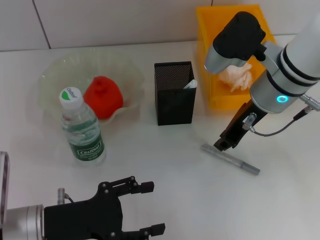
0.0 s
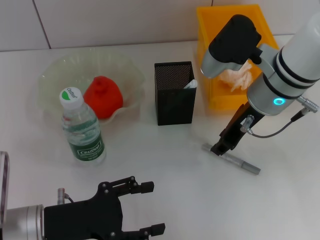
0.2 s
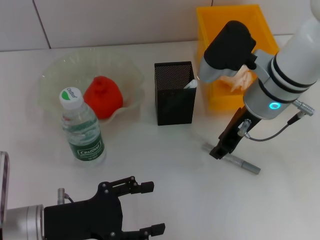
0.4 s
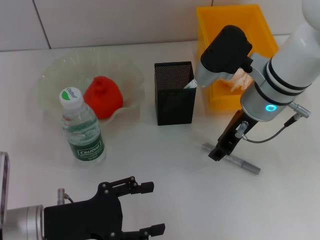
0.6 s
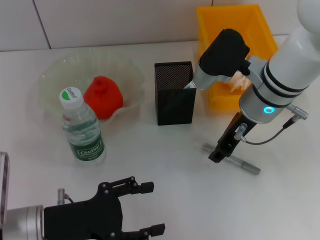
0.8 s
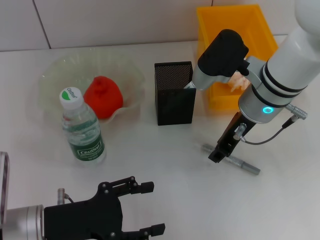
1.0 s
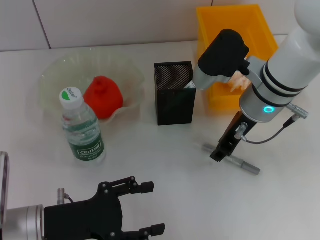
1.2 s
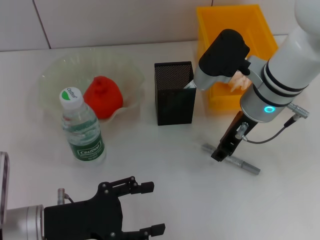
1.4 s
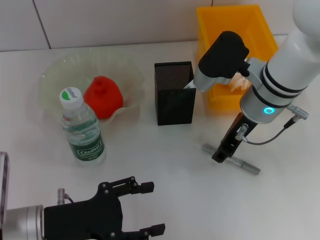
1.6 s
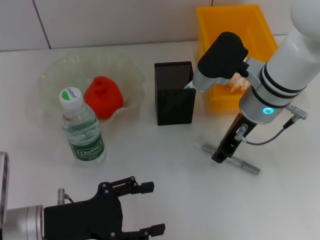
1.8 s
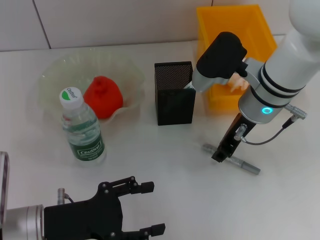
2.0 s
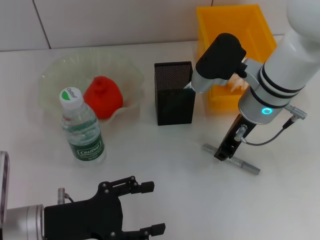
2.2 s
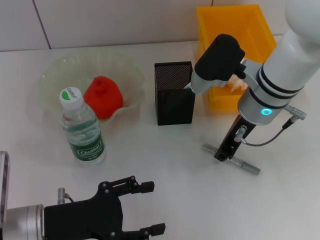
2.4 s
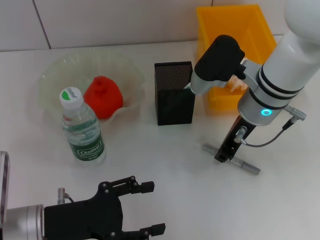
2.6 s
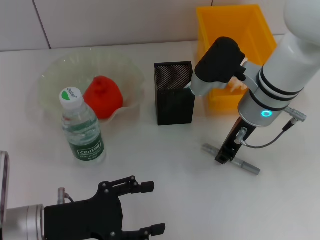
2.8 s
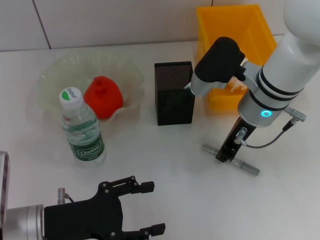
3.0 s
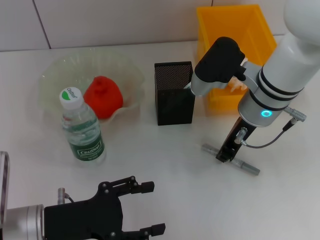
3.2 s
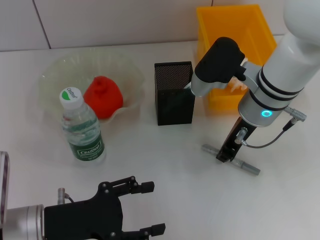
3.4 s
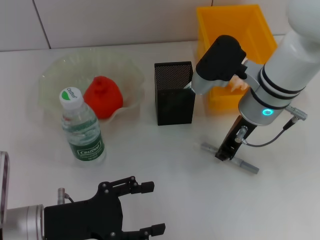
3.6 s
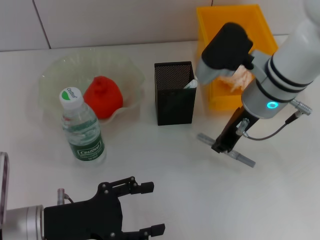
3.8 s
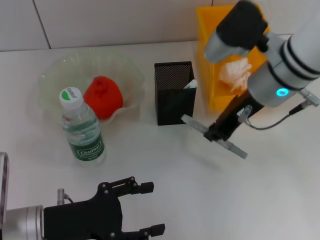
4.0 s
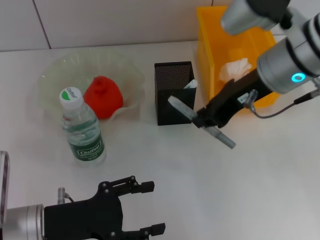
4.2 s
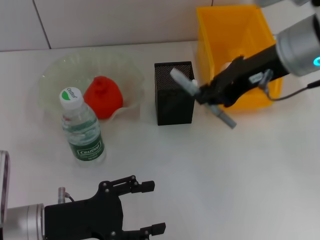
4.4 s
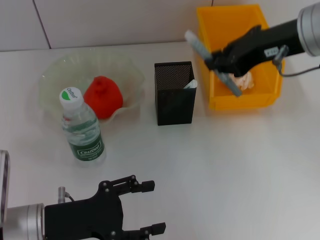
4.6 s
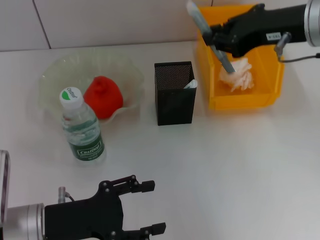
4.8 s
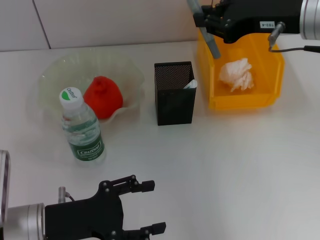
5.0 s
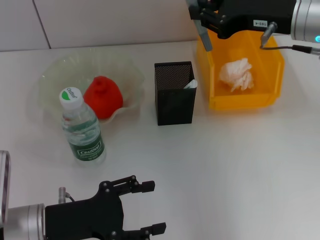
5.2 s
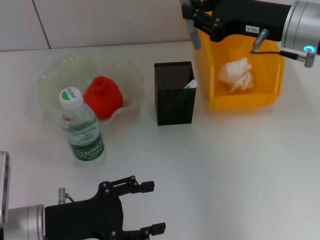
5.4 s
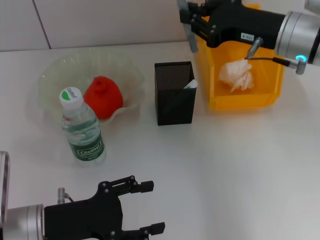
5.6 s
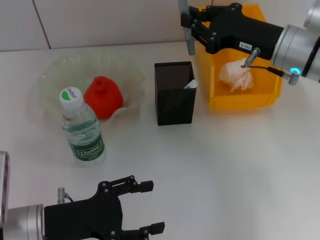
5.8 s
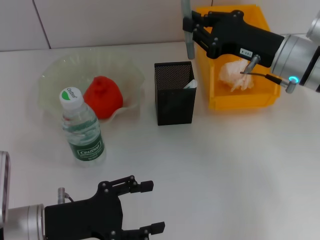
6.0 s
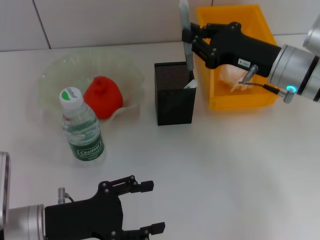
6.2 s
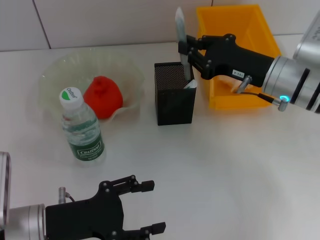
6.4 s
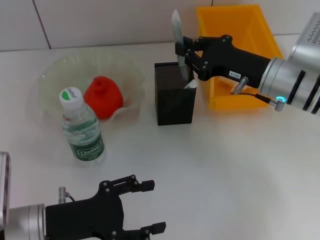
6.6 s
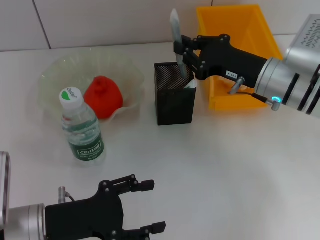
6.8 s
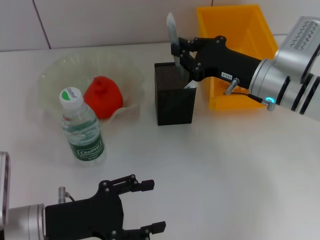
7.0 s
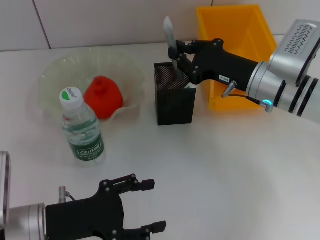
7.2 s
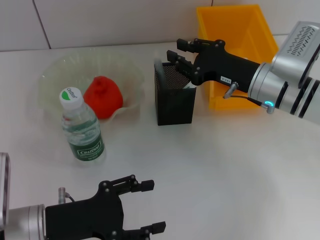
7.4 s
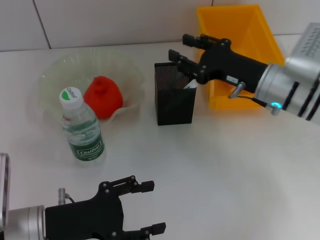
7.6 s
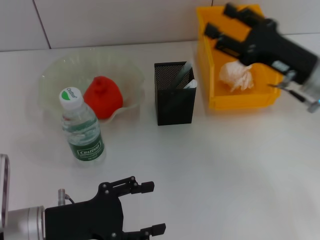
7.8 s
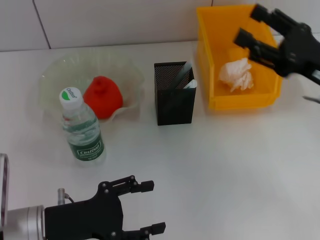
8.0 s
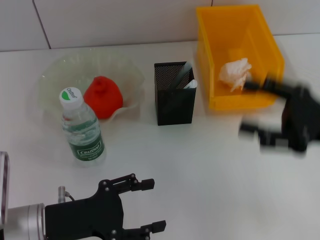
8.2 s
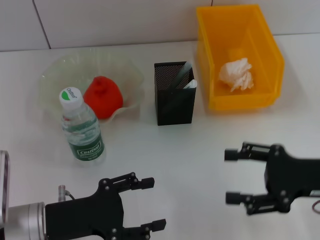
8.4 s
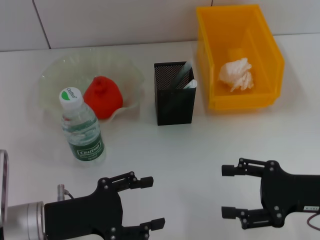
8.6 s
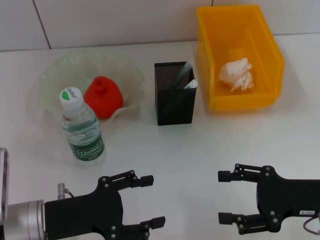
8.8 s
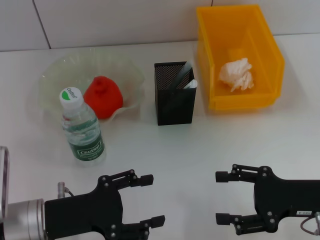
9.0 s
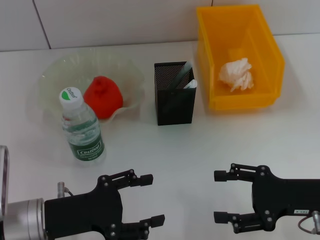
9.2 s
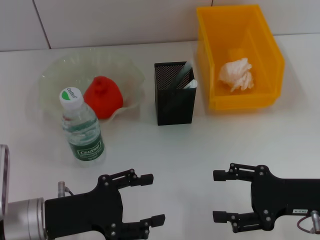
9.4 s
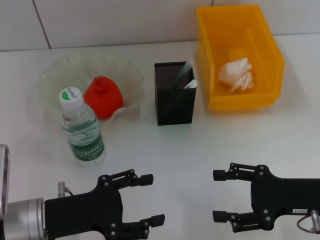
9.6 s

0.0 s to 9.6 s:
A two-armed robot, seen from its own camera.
Step, 0.0 to 3.0 s: Grab the gray glue with the right hand.
Step, 3.4 to 7.4 s: Place the gray glue into the pen holder with the right hand.
0.0 to 1.6 s: The right gripper opens its fingers.
1.6 to 3.2 s: The right gripper closes.
3.2 to 4.8 s: The right gripper travels upward and to the right by some 15 cm.
4.8 to 6.4 s: The right gripper moves downward, roughly 15 cm.
6.4 to 8.0 s: The right gripper moves to the right and backward, roughly 10 cm, and opens its fingers.
8.0 to 9.6 s: The right gripper shifts some 10 cm downward and backward.

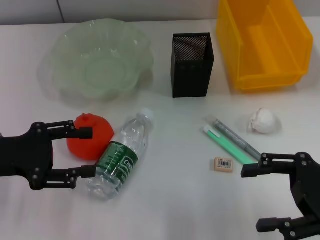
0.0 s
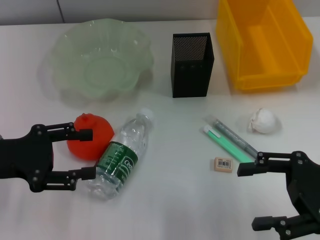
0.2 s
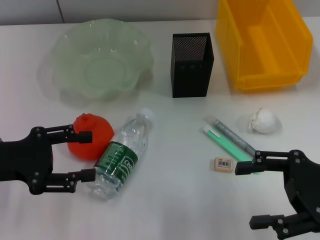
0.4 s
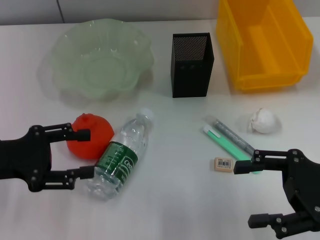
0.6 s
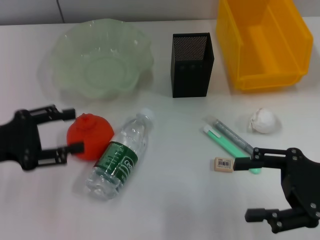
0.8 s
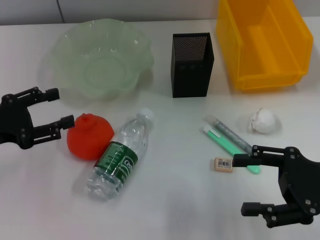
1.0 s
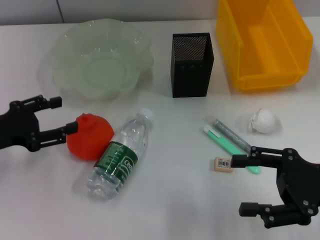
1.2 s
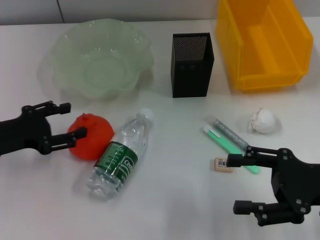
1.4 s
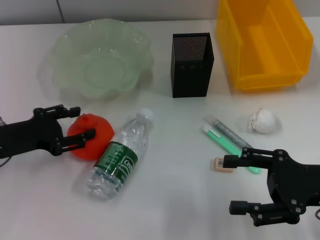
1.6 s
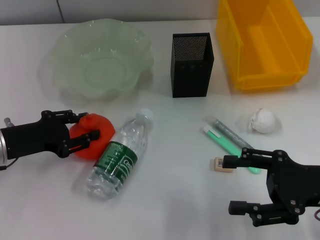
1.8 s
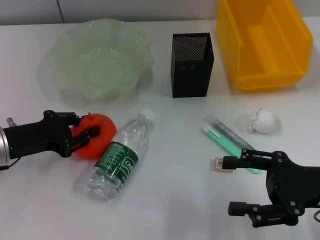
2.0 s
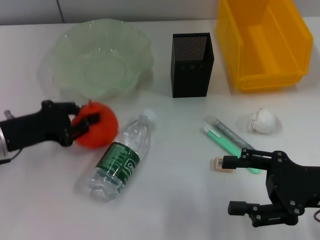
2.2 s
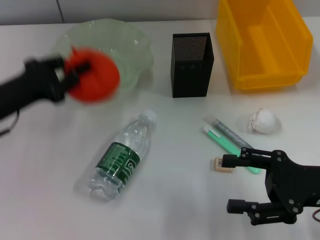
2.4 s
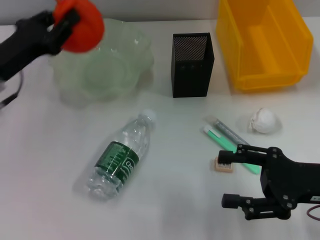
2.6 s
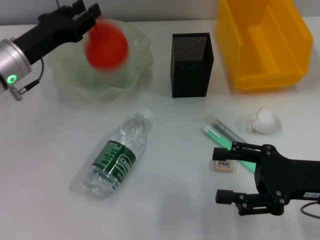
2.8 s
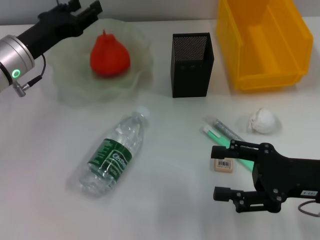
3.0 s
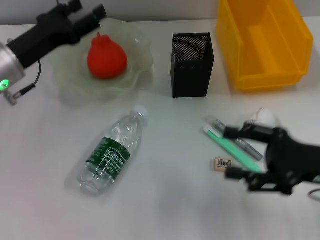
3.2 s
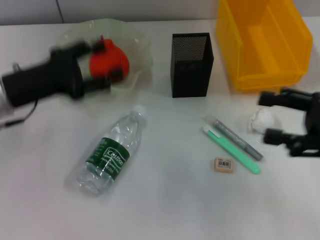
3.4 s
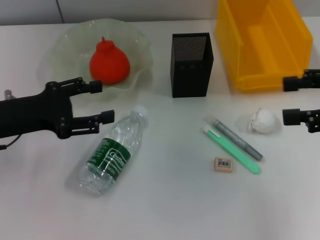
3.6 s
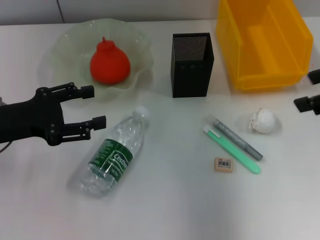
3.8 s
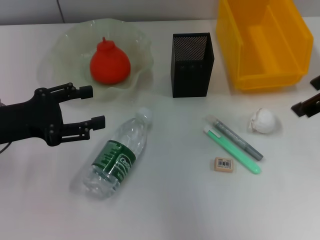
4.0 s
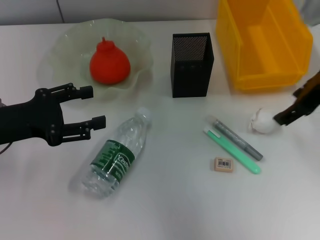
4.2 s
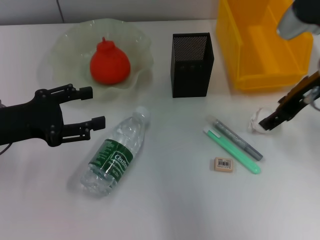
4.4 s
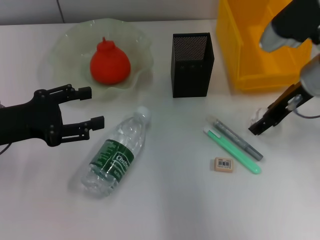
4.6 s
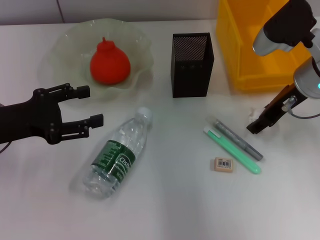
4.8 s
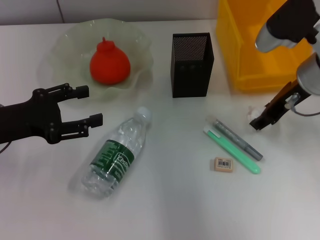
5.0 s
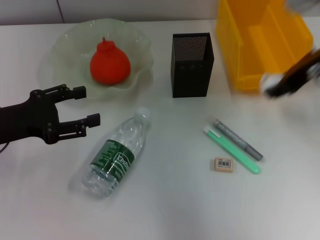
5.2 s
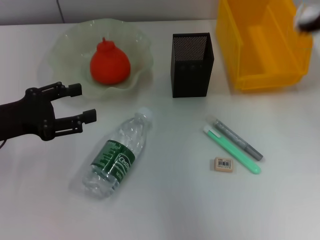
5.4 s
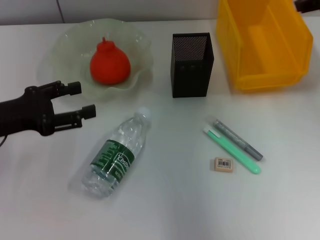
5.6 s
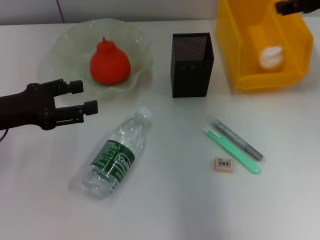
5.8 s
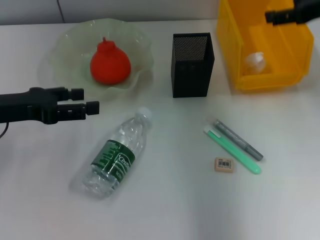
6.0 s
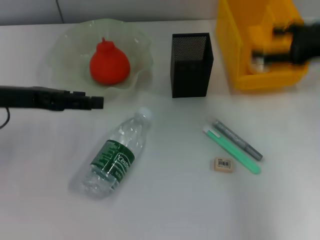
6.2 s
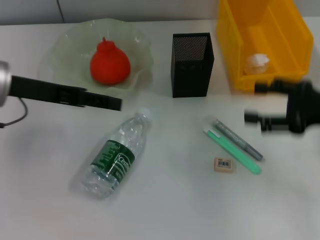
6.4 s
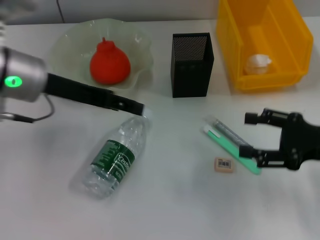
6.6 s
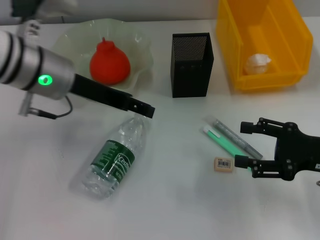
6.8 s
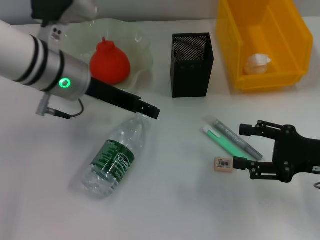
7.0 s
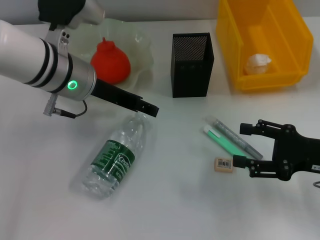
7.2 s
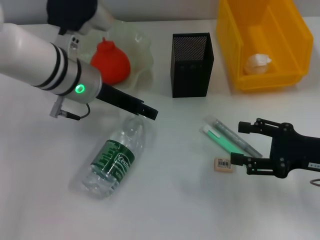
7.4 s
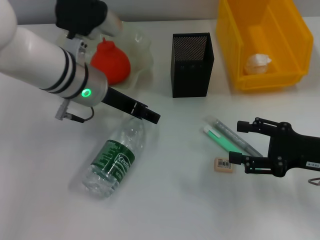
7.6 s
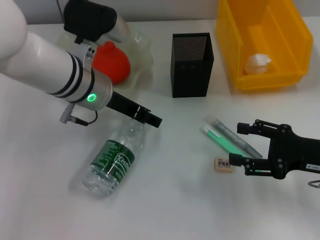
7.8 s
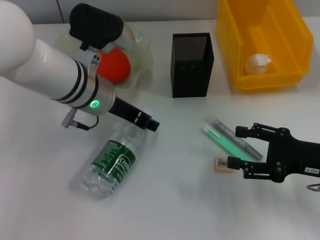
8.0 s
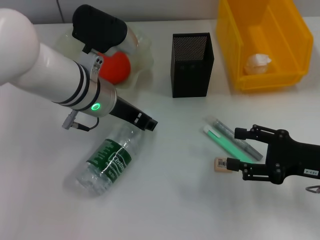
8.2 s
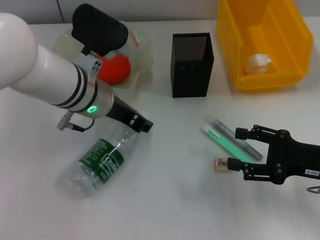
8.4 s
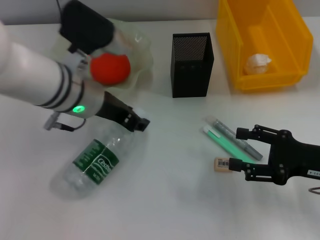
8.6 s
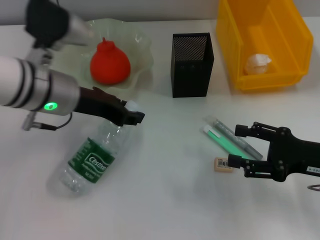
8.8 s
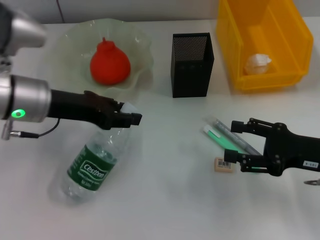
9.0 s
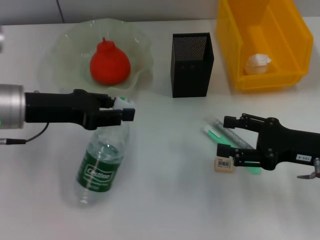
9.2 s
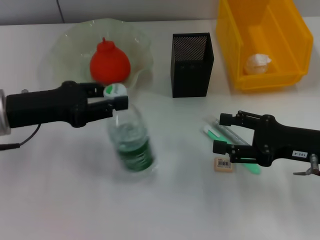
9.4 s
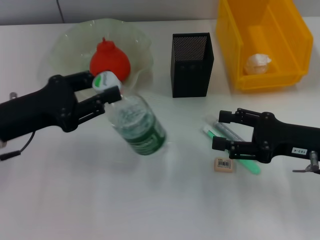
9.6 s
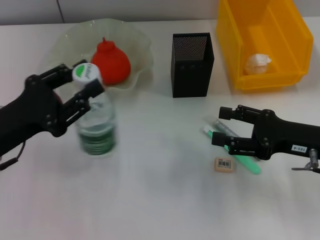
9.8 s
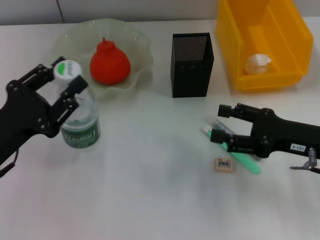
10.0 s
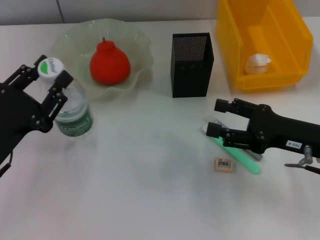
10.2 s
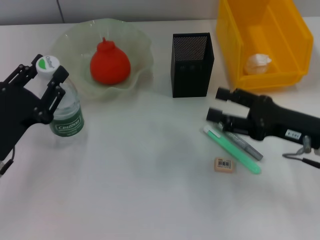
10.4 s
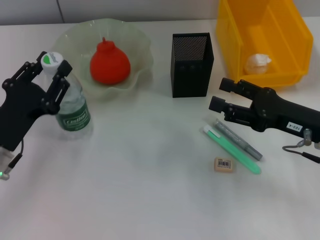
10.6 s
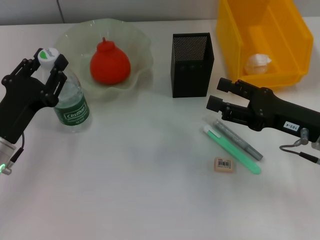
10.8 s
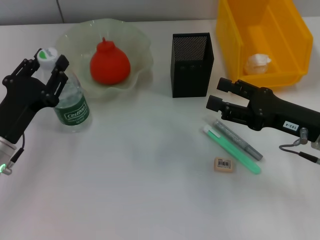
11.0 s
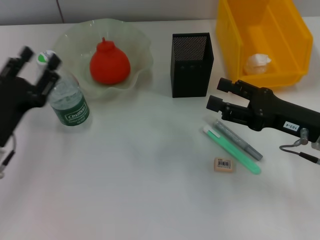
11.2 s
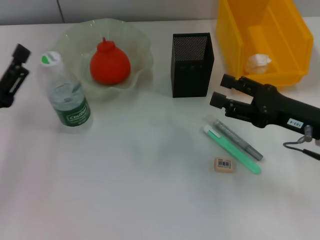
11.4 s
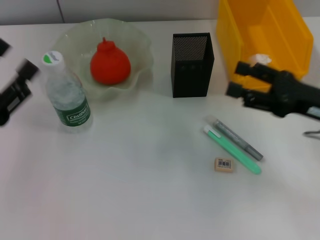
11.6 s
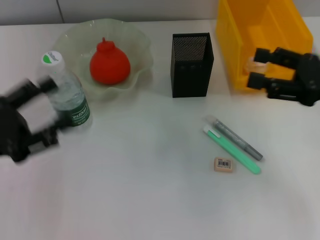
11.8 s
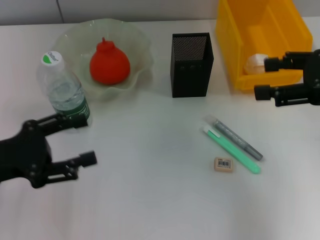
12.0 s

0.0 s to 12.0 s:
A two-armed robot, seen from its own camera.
Step, 0.0 to 2.0 s: Grab the orange with the left hand.
Step, 2.2 to 2.8 s: Place the orange into the fruit bowl with the left hand.
Step, 3.0 to 4.8 s: Grab the paper ball with the right hand.
Step, 5.0 to 5.6 s: Place the paper ball into the trash can with the right hand.
Step, 6.0 to 8.2 s: Grab the water bottle with the left hand.
Step, 8.4 to 11.0 s: Place the water bottle on the table with the left hand.
0.0 to 1.6 s: The left gripper changes place by approximately 5 cm.
1.6 to 3.0 s: The left gripper shifts roughly 10 cm forward and to the right, and closes its fingers.
3.0 to 4.4 s: The right gripper shifts about 15 cm forward and upward; the left gripper moves backward, roughly 10 cm, and opens.
4.4 to 6.0 s: The right gripper moves to the right, about 5 cm, and closes and opens again.
6.0 to 7.6 s: The left gripper goes approximately 15 cm to the right and forward. Meanwhile the right gripper travels downward and backward by roughly 20 cm.
7.6 to 9.0 s: The left gripper heads to the left, covering about 10 cm, and closes up.
9.0 to 10.4 s: The left gripper moves backward, downward and to the left, roughly 15 cm.
10.4 to 12.0 s: The right gripper goes approximately 15 cm upward. Meanwhile the left gripper ends up approximately 5 cm from where it was, and opens up.
